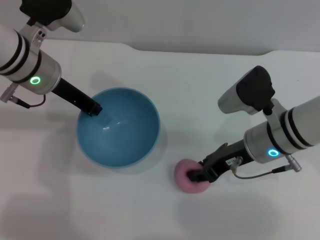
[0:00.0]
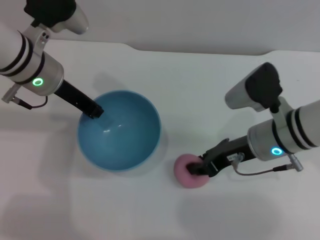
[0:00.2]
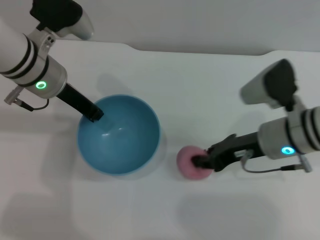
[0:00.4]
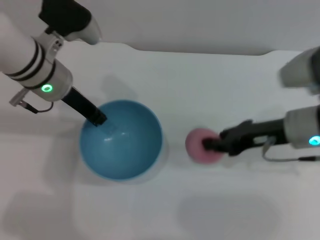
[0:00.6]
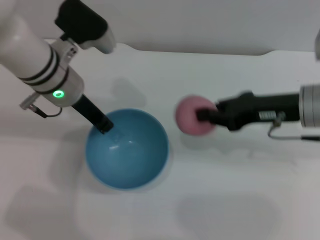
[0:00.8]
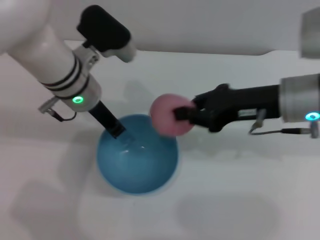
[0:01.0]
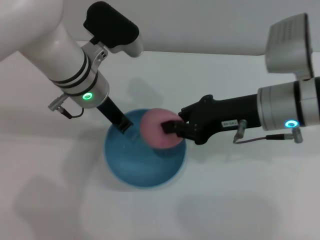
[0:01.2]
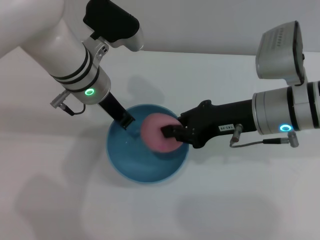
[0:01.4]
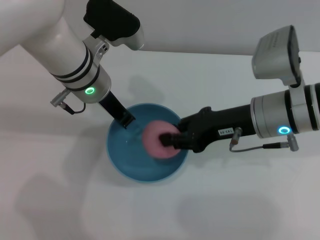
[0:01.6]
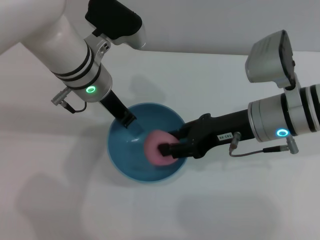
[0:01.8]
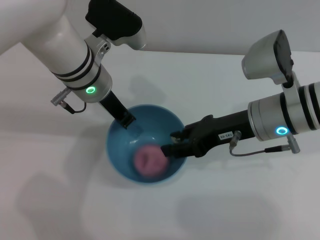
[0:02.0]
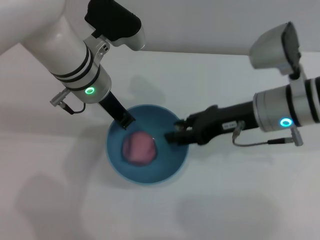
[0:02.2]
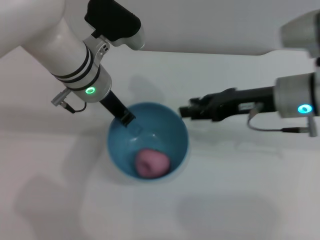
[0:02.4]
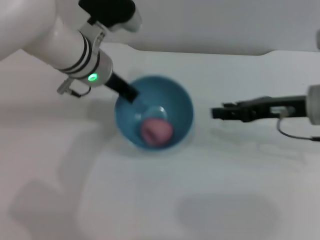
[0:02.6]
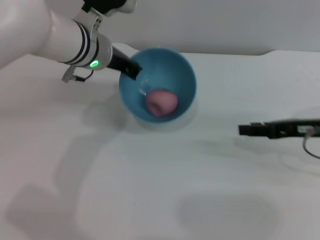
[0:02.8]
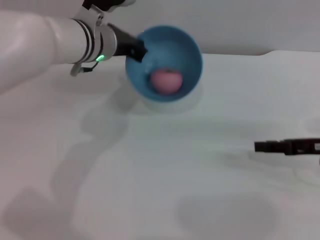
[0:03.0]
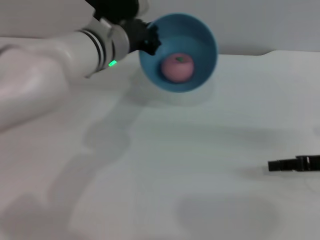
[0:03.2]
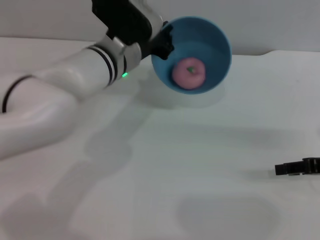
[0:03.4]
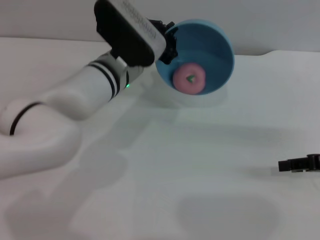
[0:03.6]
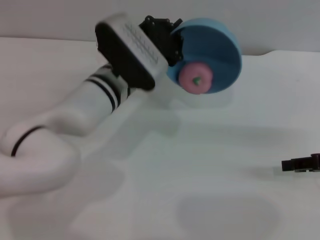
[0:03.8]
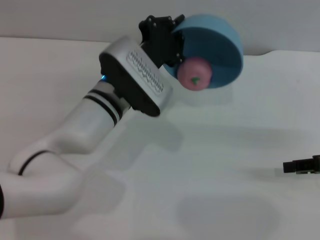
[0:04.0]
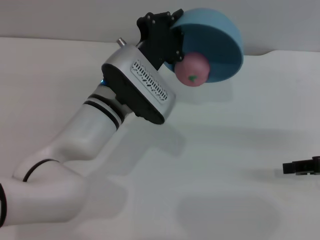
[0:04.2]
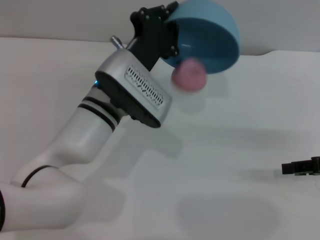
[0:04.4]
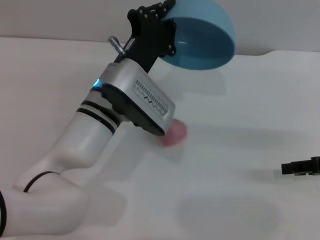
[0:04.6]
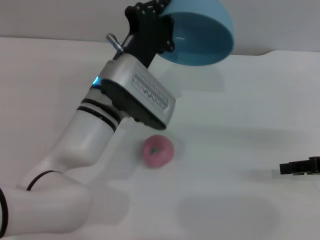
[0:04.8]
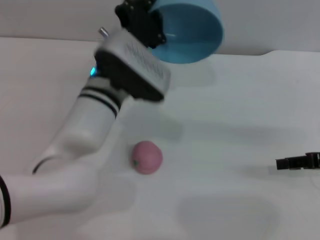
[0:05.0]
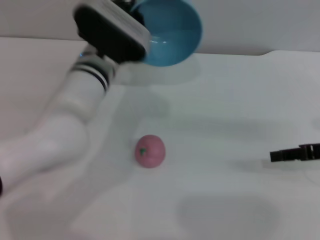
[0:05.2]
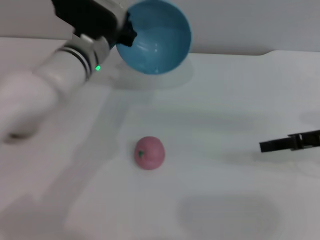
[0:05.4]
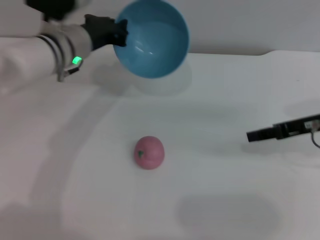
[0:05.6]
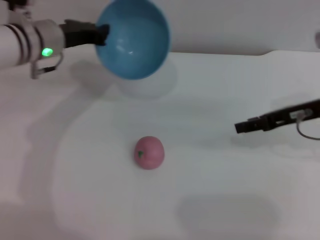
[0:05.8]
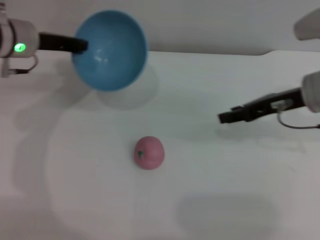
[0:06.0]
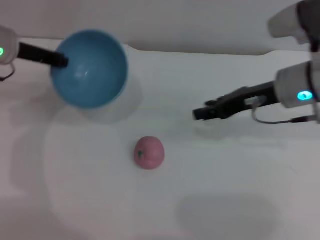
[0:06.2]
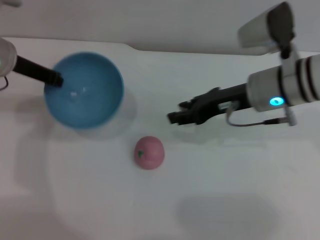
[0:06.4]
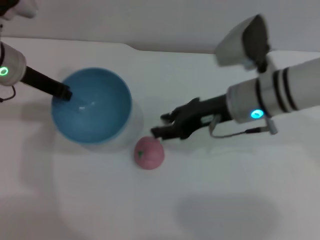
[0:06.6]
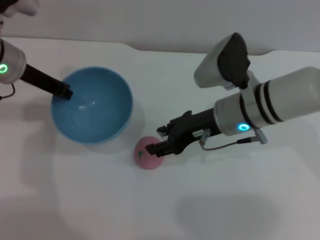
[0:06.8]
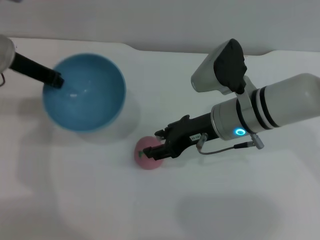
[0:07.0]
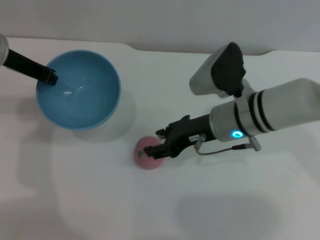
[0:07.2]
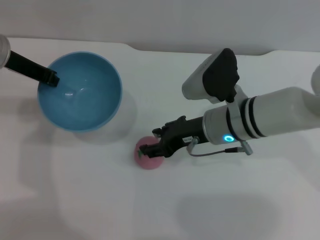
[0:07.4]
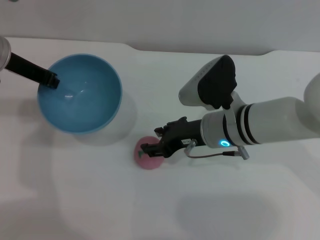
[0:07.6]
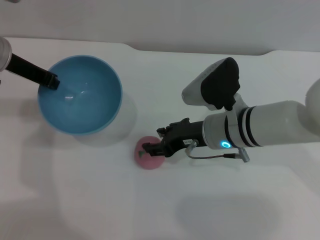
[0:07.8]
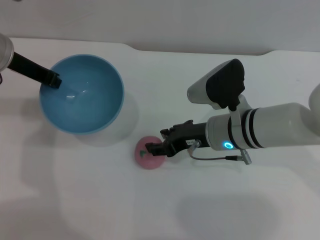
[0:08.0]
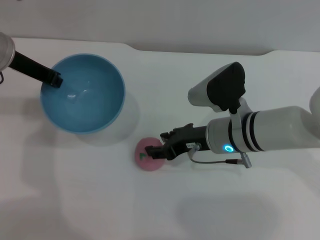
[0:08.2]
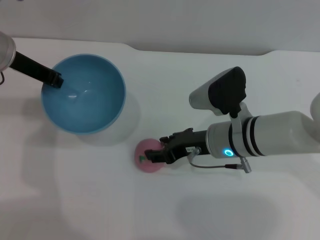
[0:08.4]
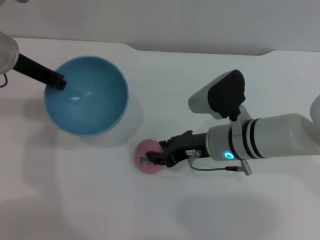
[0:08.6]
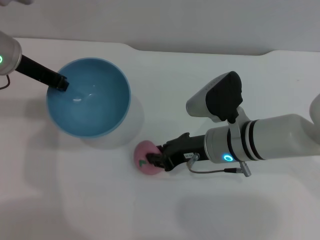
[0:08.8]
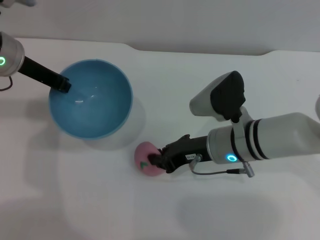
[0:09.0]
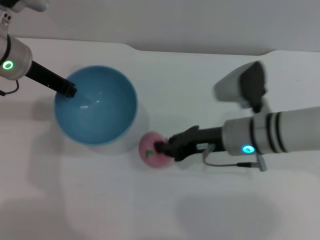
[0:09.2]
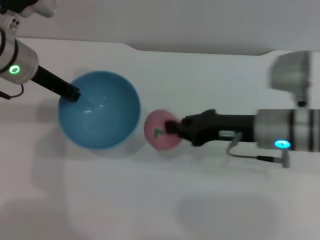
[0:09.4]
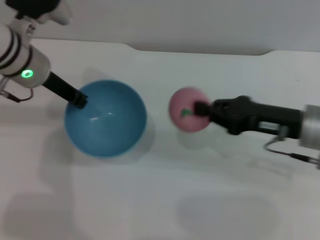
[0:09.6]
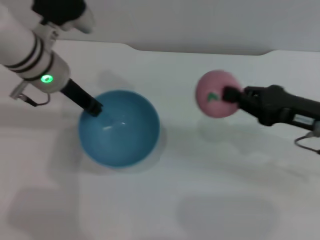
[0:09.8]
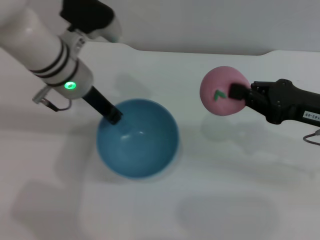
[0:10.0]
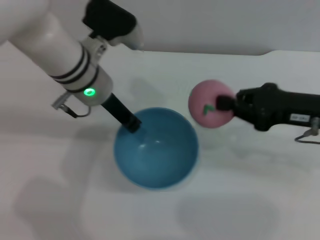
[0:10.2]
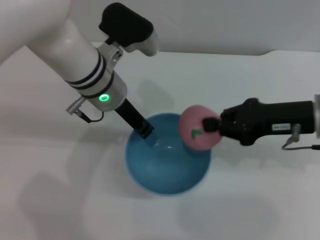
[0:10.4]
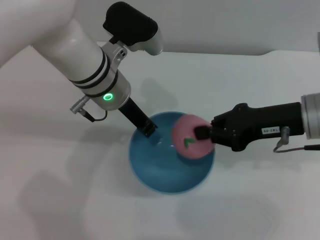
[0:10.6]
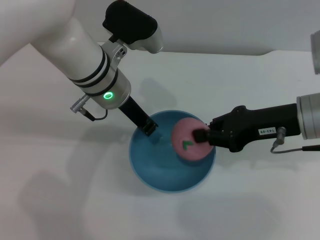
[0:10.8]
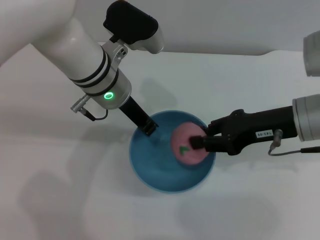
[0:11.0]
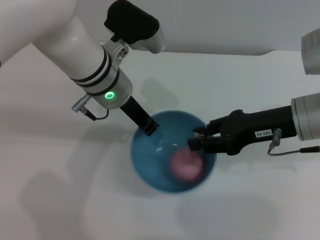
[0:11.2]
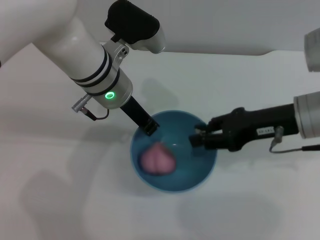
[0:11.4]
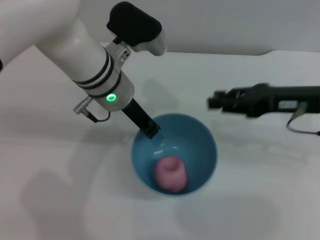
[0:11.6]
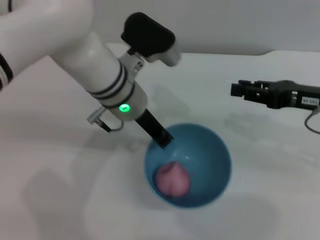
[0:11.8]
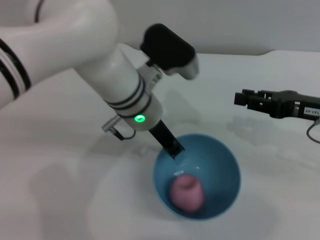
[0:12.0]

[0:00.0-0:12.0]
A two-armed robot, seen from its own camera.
Task of the whole recording: put the peach into the blue bowl and pour it out repeatedly.
Step, 0:01.0 to 0:02.2: Place the peach into the bowl.
Step, 0:02.4 to 0:04.8: Pour the peach out of bowl.
Step, 0:05.0 to 0:09.4: Pick up the peach with the right gripper.
Step, 0:09.6 to 0:11.4: Place the peach into the bowl.
0:00.0 to 0:01.6: The right gripper goes approximately 5 cm upward, and closes its fingers; the left gripper shifts about 10 cm to the right.
0:01.6 to 0:03.0: The right gripper moves to the right, some 15 cm, and opens.
0:03.0 to 0:04.4: The left gripper moves backward and downward, roughly 10 cm.
0:04.4 to 0:06.0: Both grippers move to the left and forward, roughly 15 cm.
0:06.0 to 0:07.6: The right gripper shifts roughly 15 cm to the left and downward.
0:07.6 to 0:09.0: The right gripper closes.
0:09.0 to 0:10.4: The right gripper travels to the right and upward by some 15 cm, and closes its fingers. Meanwhile the left gripper heads to the right, covering some 15 cm.
0:10.4 to 0:12.0: The right gripper moves roughly 5 cm, and opens up. Meanwhile the left gripper goes approximately 5 cm to the right.

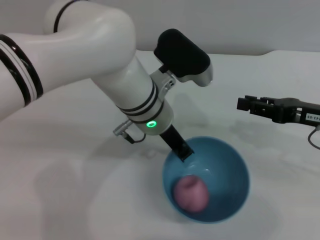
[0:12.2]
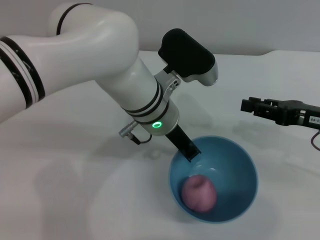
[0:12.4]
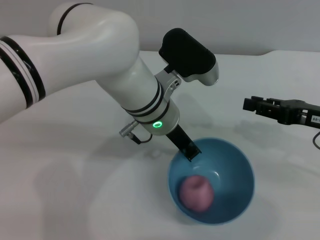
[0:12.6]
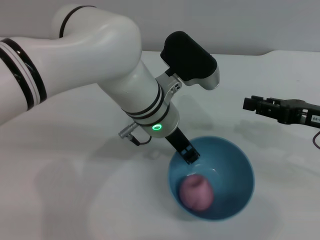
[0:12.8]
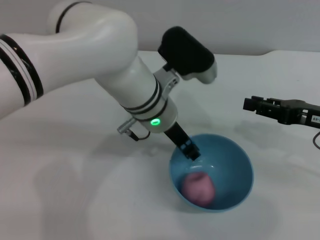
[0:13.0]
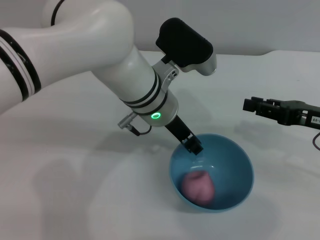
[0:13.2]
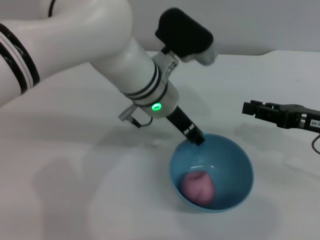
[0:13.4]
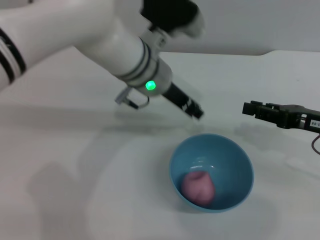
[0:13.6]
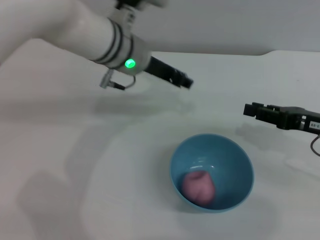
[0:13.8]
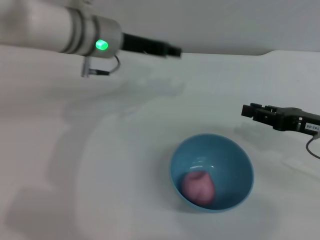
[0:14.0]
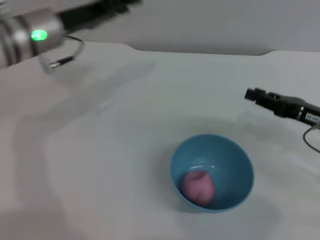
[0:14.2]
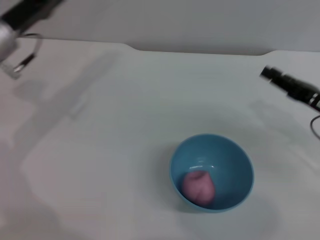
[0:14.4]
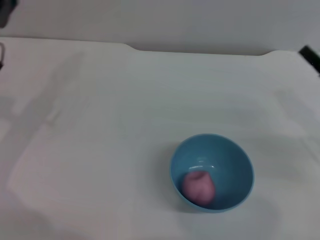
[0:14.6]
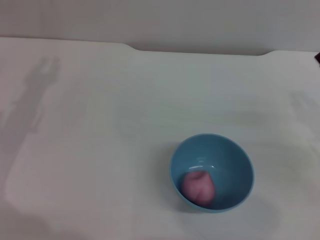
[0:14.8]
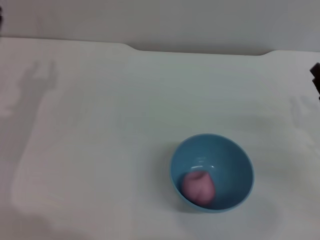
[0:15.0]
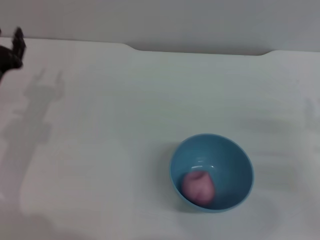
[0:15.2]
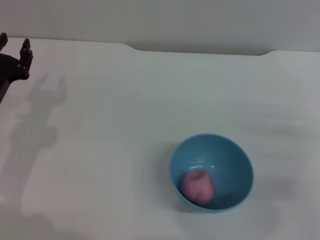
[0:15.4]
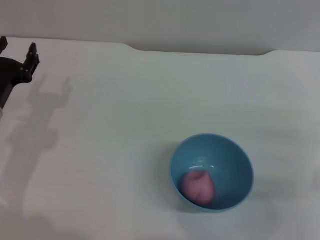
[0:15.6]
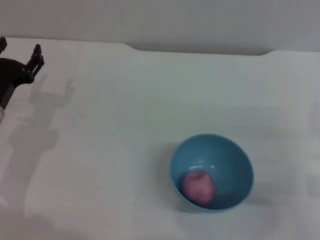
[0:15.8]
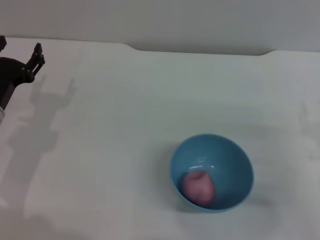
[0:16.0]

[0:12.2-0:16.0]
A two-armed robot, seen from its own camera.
Task of the whole recording: put the peach into the blue bowl and pour it out repeatedly.
Step, 0:12.2 to 0:13.4: Place the bowl on the table.
0:12.2 to 0:13.4: The left gripper opens.
0:13.4 to 0:14.8: The left gripper heads to the left, covering some 30 cm, while the right gripper heads downward, covering approximately 5 cm.
0:14.8 to 0:16.0: The left gripper is displaced downward by roughly 5 cm.
